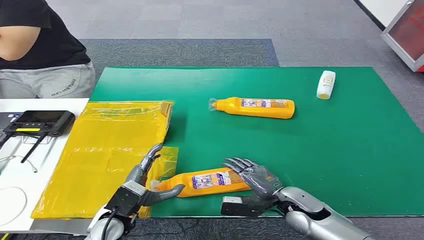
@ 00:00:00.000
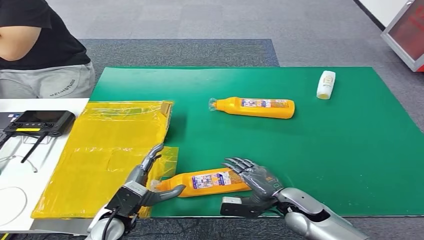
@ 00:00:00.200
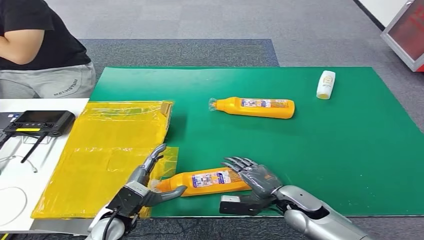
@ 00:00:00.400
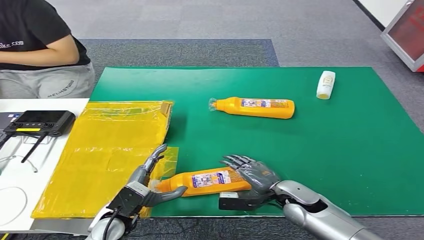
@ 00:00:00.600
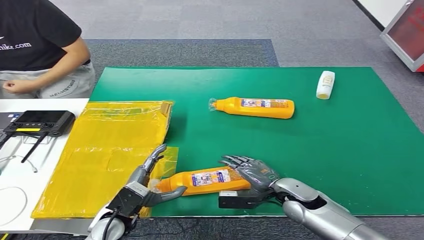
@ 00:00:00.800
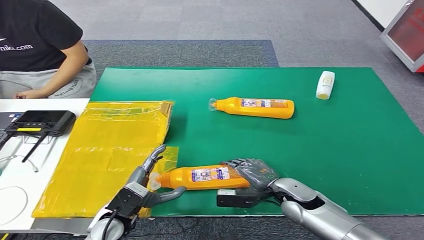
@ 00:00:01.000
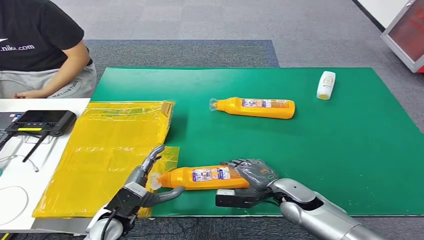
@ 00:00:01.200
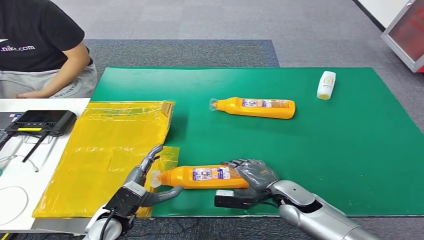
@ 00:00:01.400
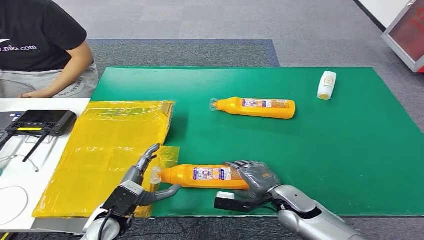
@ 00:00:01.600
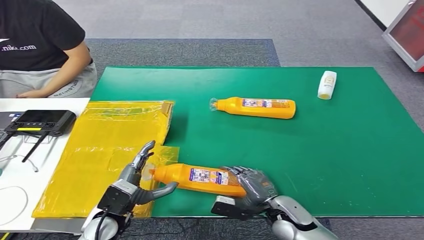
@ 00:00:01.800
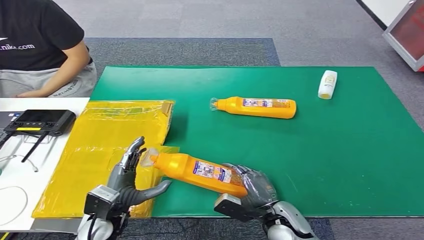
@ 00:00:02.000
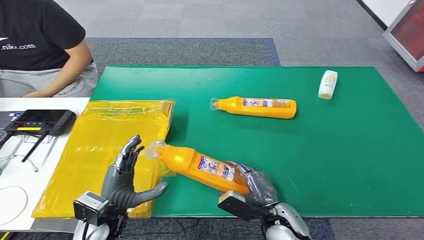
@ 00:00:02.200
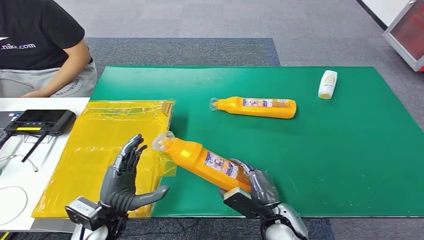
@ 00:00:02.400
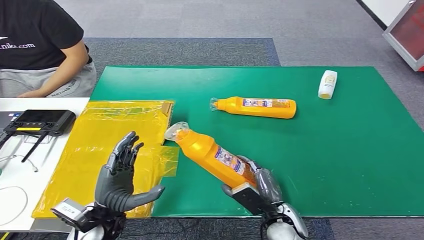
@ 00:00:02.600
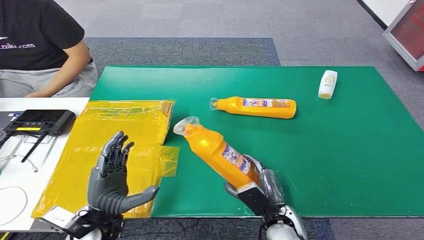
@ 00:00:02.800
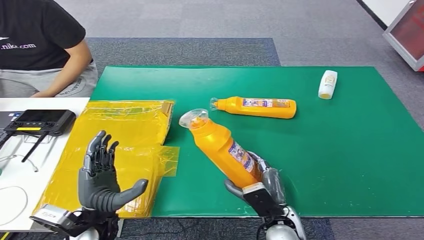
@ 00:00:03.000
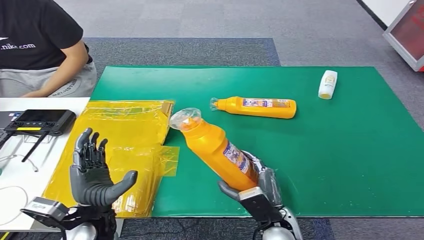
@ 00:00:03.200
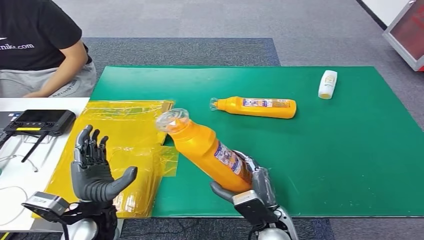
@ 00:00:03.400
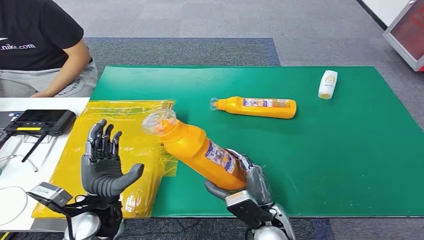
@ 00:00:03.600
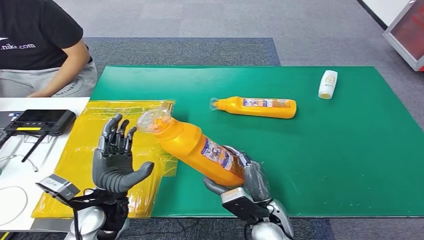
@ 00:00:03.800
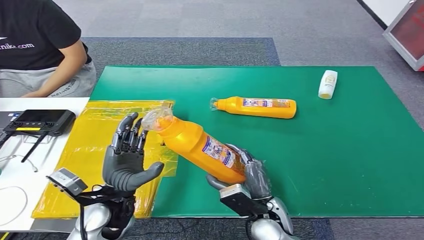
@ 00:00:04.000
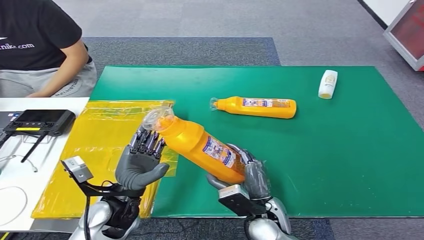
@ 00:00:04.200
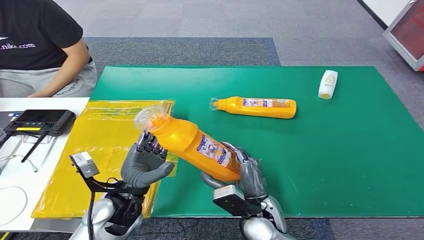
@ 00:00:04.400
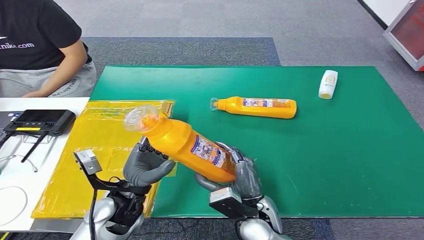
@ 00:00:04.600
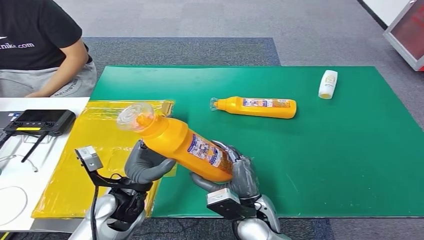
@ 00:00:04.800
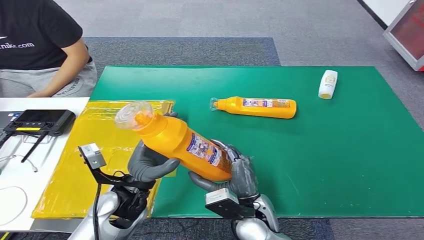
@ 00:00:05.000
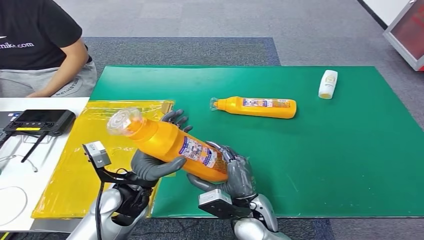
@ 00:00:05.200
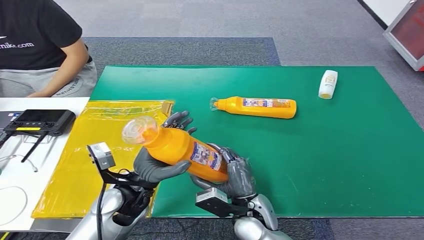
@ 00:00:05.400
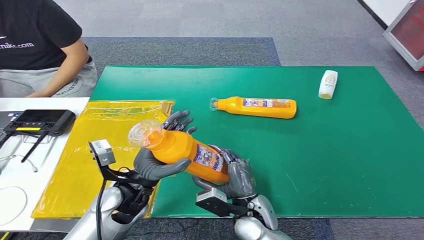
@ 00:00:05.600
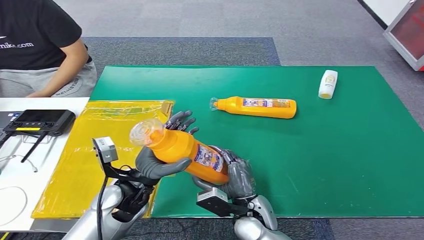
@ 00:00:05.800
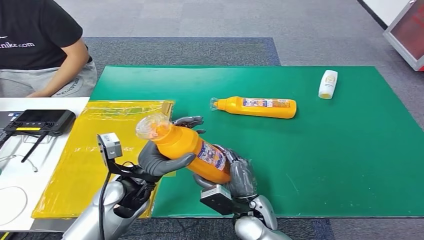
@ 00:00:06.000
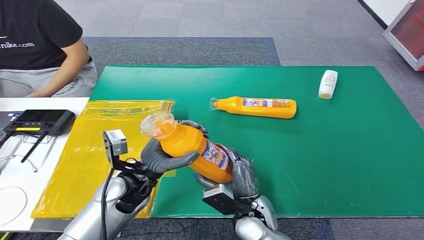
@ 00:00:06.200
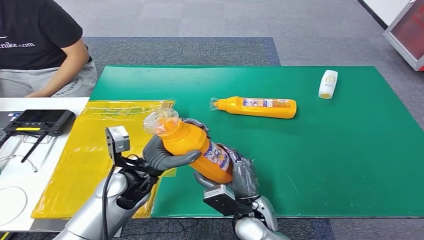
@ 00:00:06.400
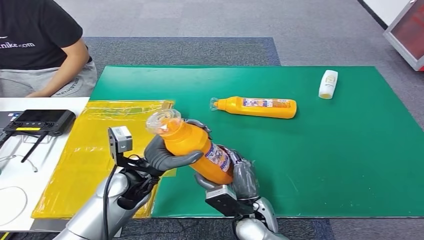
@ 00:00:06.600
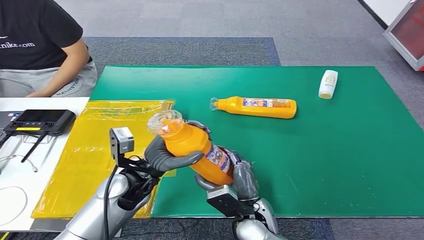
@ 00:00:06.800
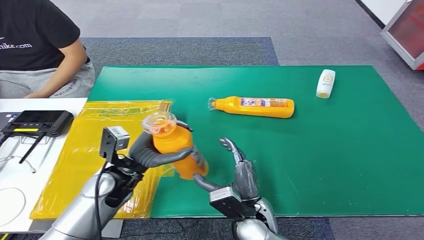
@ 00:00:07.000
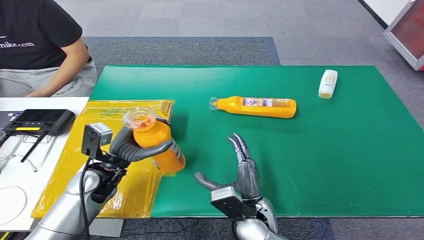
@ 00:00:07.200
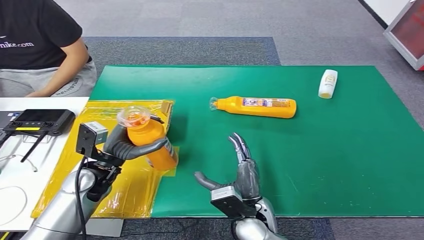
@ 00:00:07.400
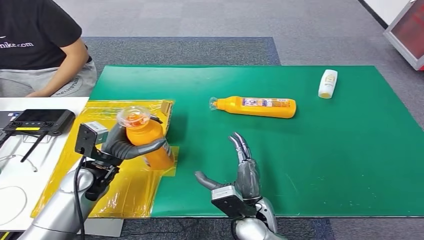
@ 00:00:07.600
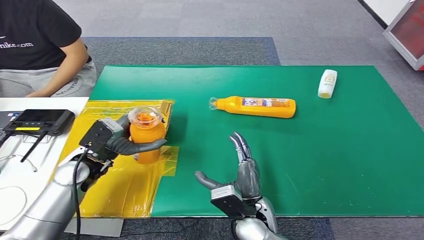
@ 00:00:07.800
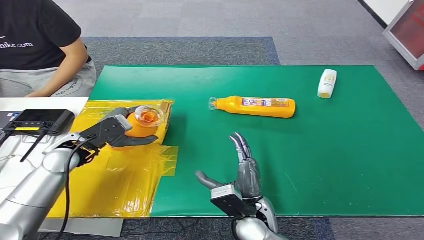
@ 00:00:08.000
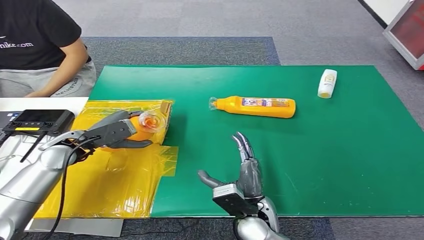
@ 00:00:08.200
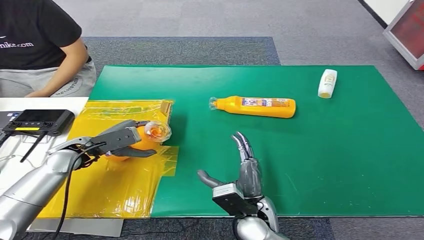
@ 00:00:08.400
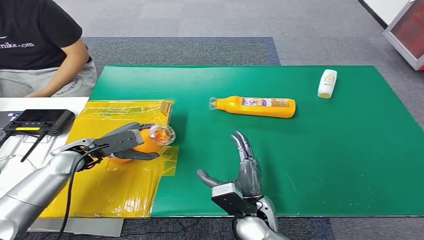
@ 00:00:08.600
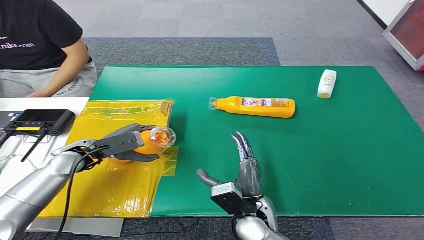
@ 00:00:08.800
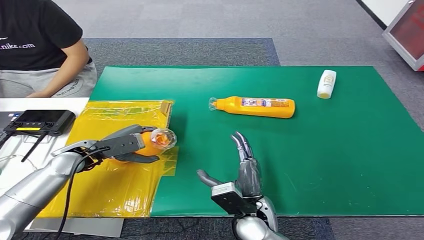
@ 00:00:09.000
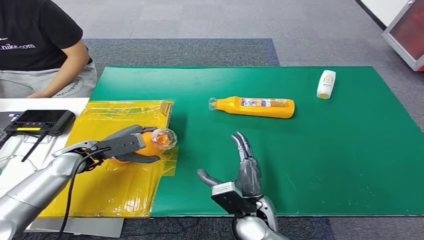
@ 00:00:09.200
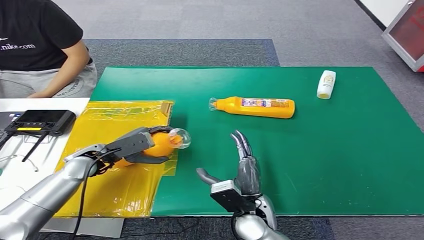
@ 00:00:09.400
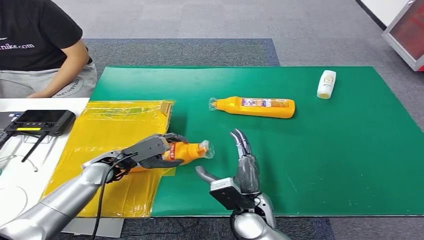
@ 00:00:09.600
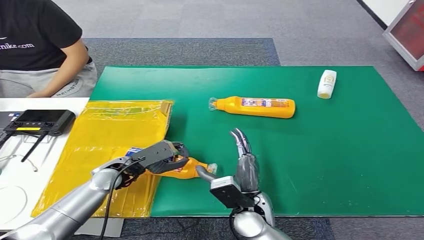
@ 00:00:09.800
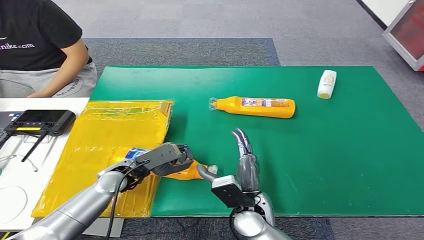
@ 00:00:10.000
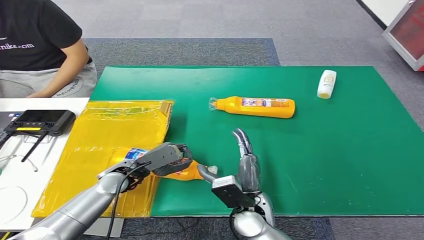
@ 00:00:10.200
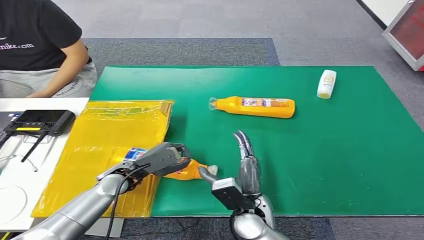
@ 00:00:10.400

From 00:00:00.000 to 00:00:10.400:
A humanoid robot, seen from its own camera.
Step, from 00:00:00.000 to 00:00:03.600: Pick up the bottle from the table.
Step, from 00:00:03.800 to 00:00:10.200: Turn the bottle to the front side.
From 00:00:03.000 to 00:00:04.400: The left hand ends up some 5 cm from where it was; the right hand shifts by about 5 cm.
From 00:00:04.400 to 00:00:06.000: There are only small adjustments of the hands.
From 00:00:06.000 to 00:00:07.400: The left hand heads to the left, covering some 10 cm.
From 00:00:07.400 to 00:00:09.000: The left hand goes some 5 cm to the left.
From 00:00:09.000 to 00:00:10.400: The left hand shifts about 10 cm to the right and downward.
